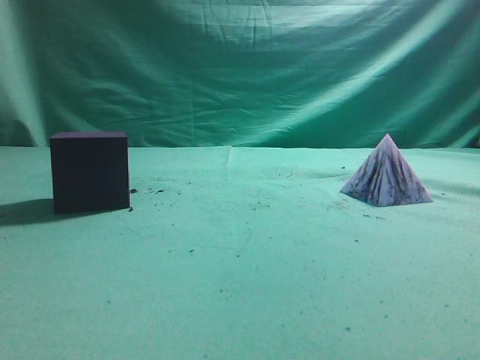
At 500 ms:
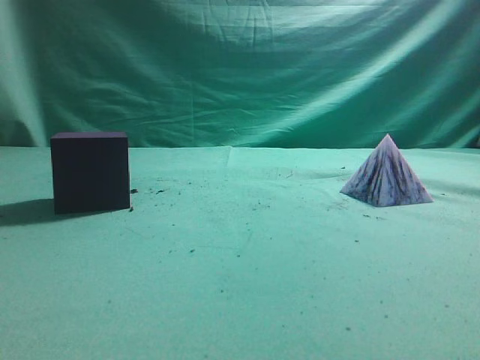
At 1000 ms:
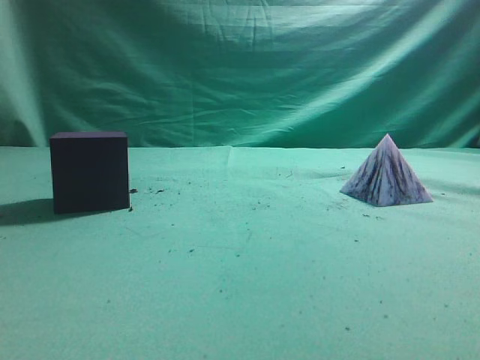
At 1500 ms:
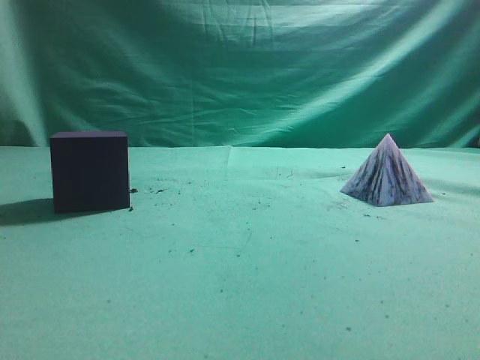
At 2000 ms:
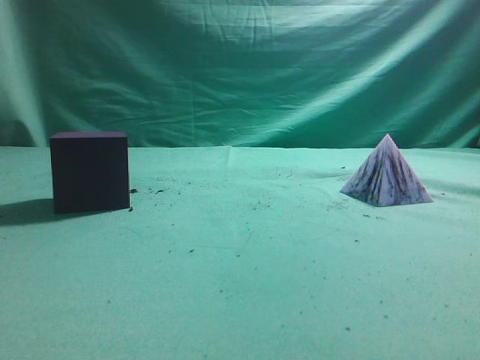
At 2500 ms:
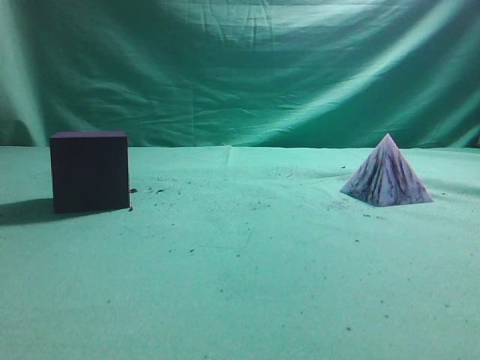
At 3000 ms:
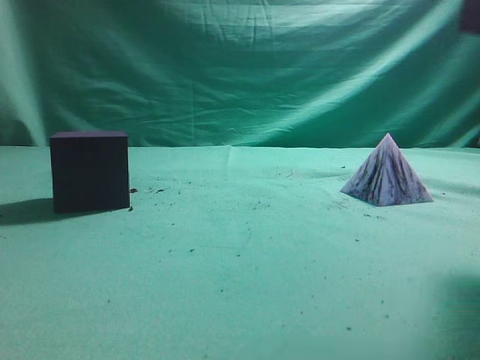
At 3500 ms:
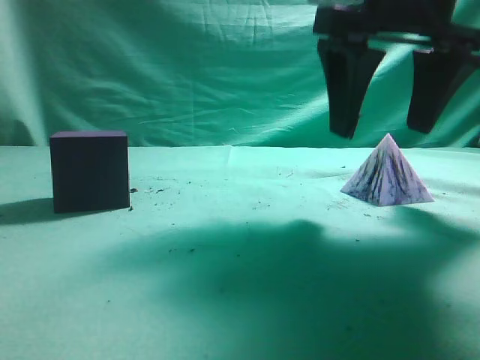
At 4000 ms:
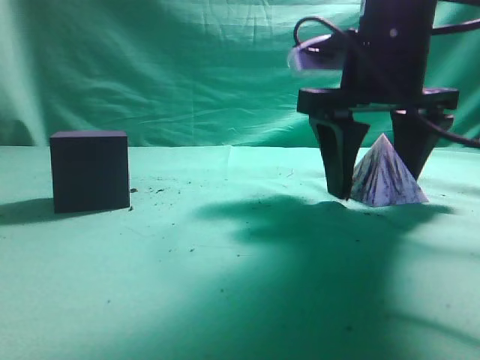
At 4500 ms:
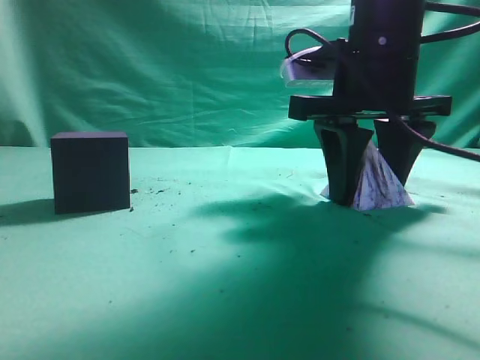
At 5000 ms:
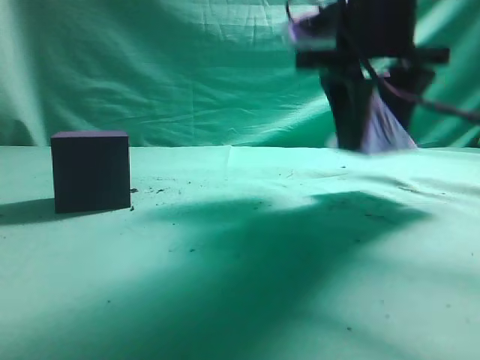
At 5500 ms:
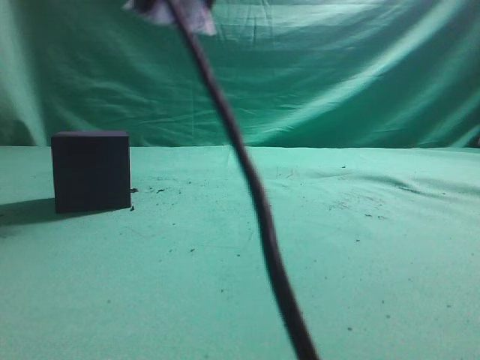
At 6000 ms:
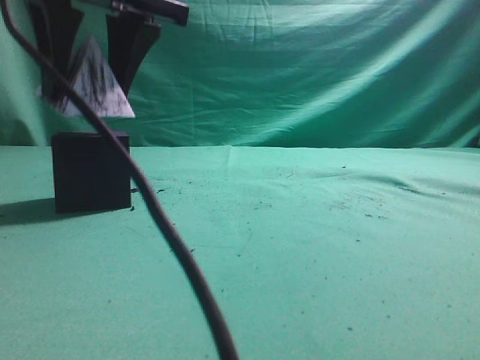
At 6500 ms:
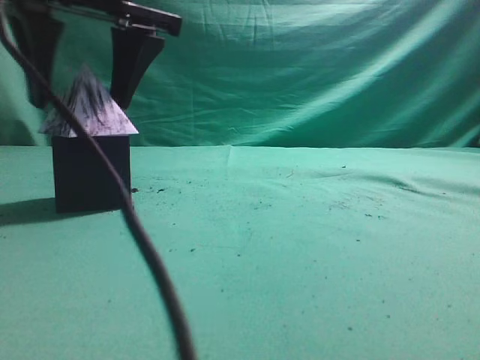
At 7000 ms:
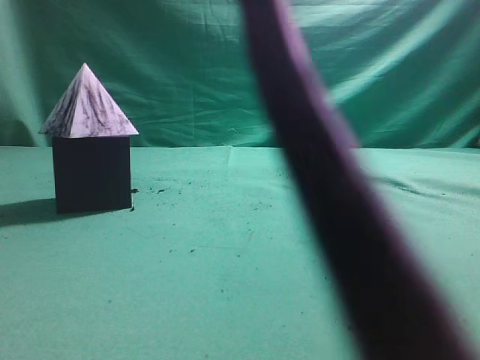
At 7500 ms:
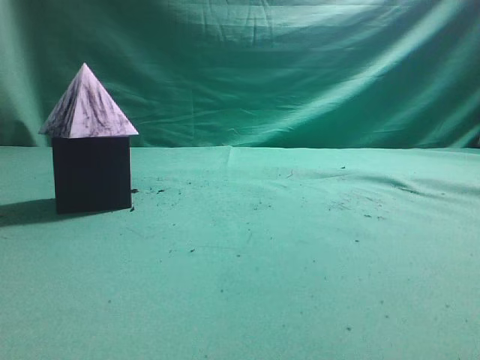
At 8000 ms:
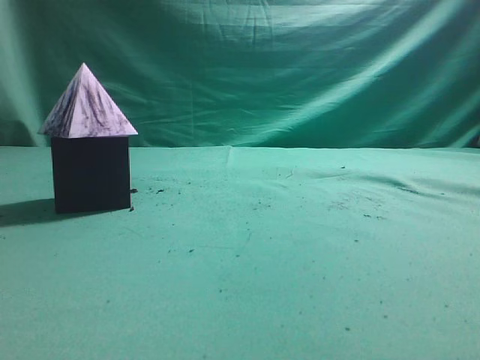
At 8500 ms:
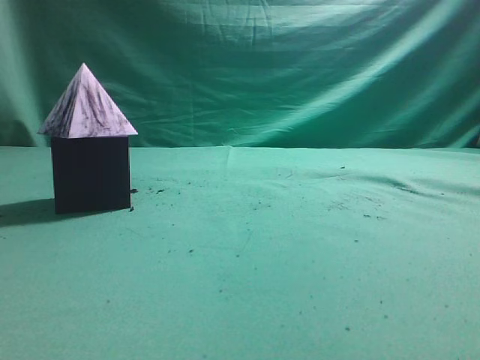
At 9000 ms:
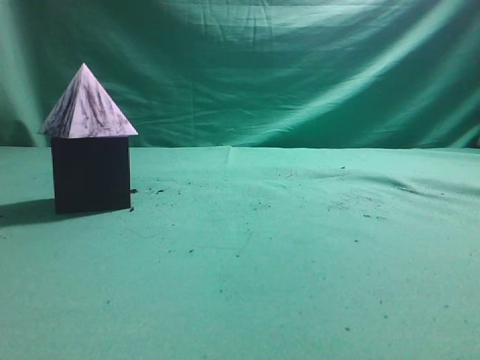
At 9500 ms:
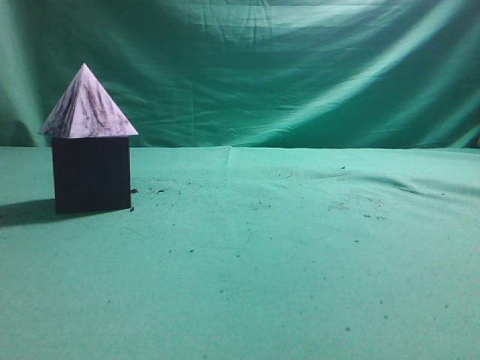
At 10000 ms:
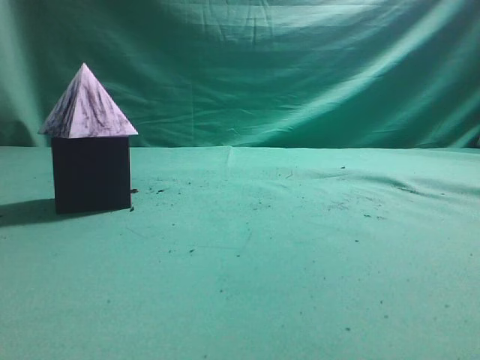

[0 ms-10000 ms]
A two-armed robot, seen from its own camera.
Task of the whole recording: pick up the square pyramid from the table and place it on the cube block.
Step, 0 ms to 5000 ms: Grasp the triangular block.
Step, 5500 ms to 6500 ms: Place the block onto the cube-shaped block.
2000 ms to 4000 ms: The right gripper travels forward, to the left and downward by approximately 35 cm, and opens.
4000 ms to 6000 ms: The right gripper heads to the left, covering roughly 20 cm.
6000 ms to 8000 ms: The right gripper shifts approximately 40 cm to the right, backward and upward, and closes up.

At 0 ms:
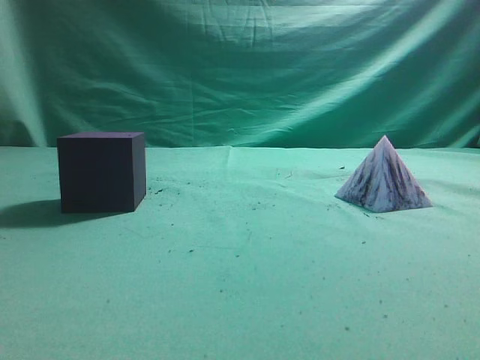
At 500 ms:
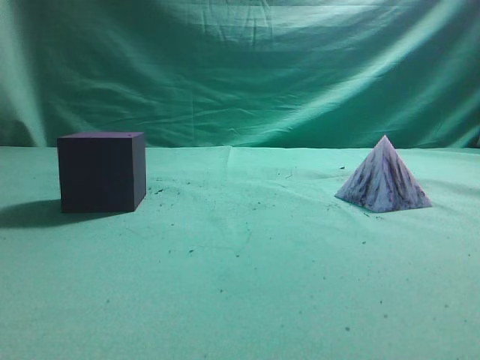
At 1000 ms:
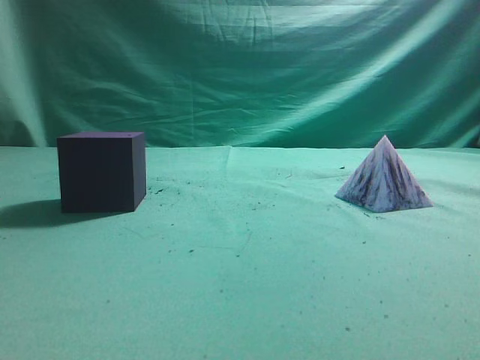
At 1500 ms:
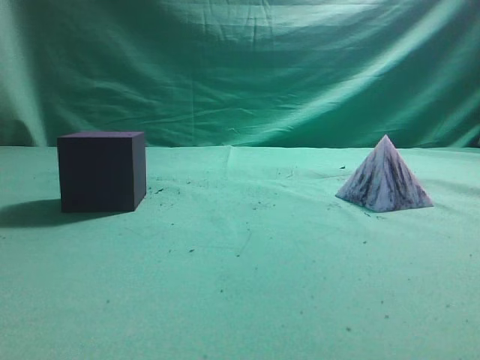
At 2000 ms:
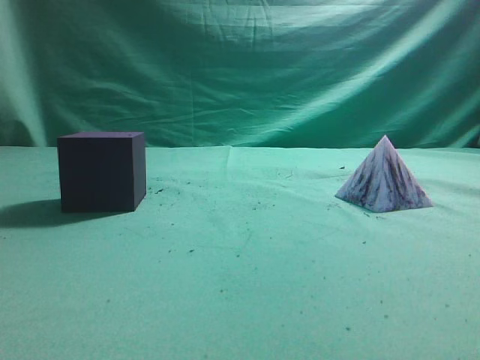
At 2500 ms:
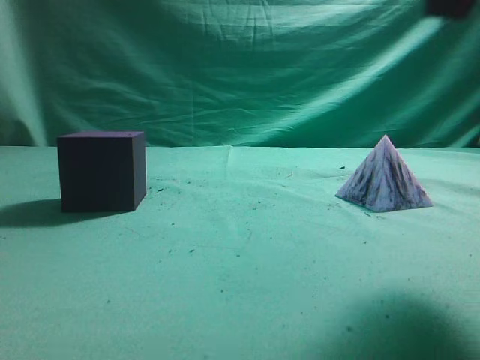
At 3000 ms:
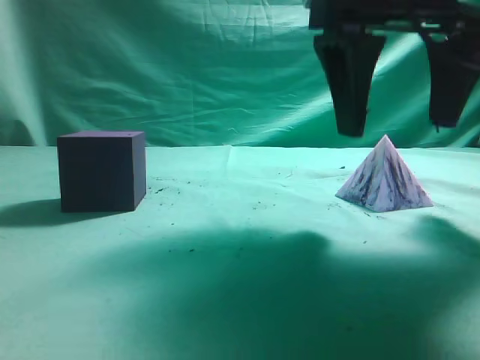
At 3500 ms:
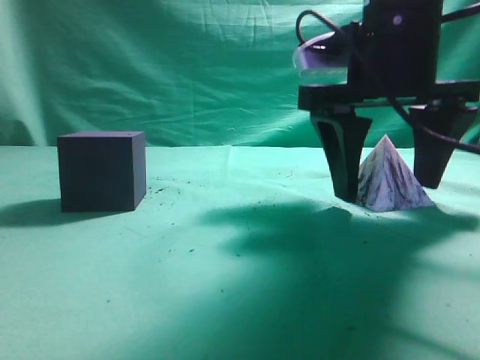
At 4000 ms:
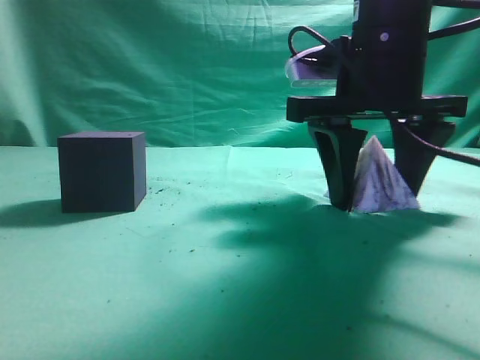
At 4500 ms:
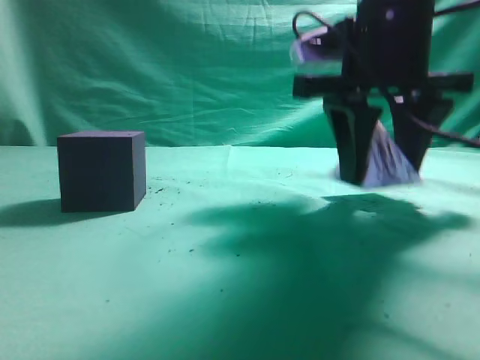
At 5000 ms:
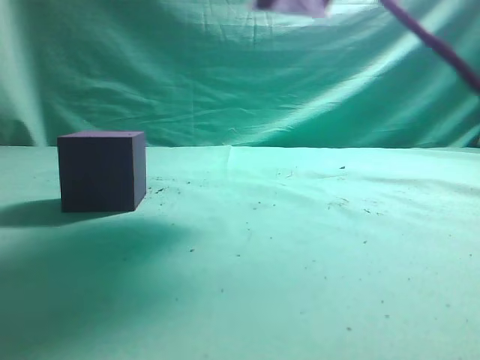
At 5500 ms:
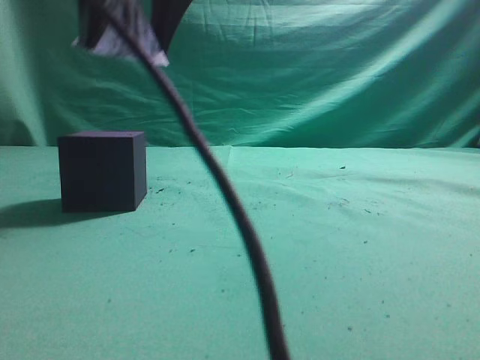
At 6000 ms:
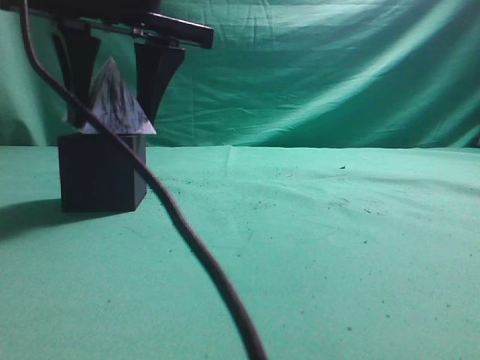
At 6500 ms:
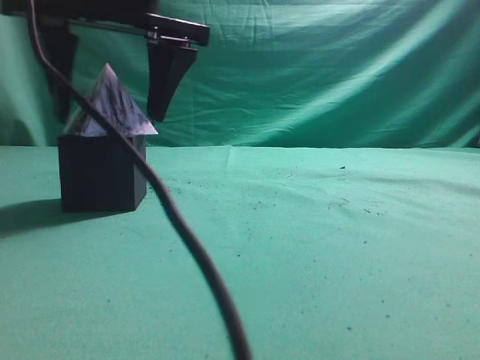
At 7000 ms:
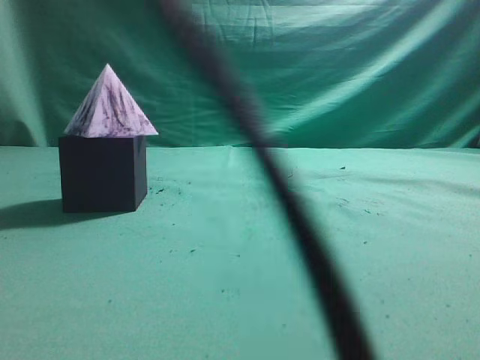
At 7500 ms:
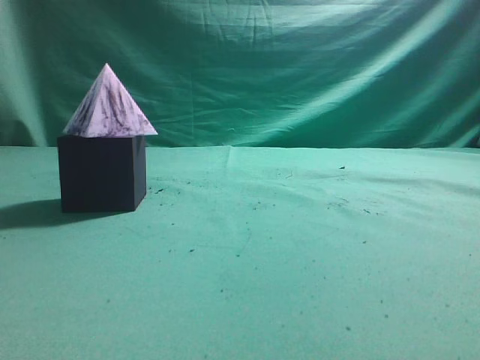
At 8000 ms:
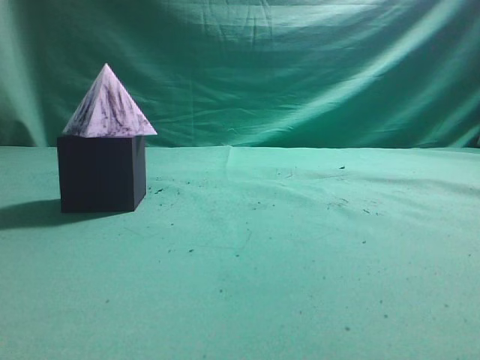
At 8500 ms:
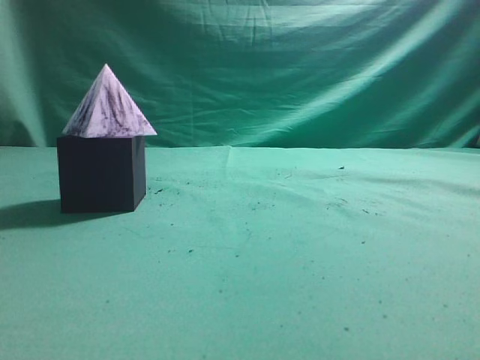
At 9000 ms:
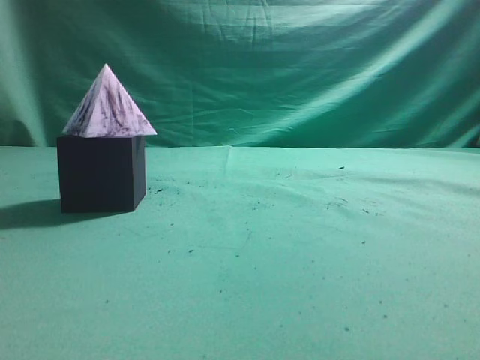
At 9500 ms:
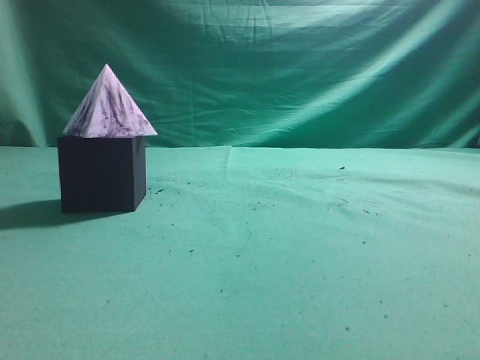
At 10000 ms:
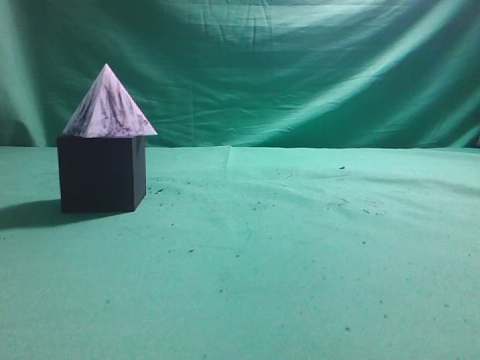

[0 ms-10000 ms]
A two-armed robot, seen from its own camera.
Task of the whole recording: pick up the square pyramid from the table and place it on the cube block.
Step, 0 ms to 4500 ms: Grasp the triangular block.
Step, 5000 ms to 6500 ms: Place the block onto the cube-shaped block.
2000 ms to 4000 ms: The right gripper is displaced forward, downward and to the left by roughly 30 cm, and opens its fingers.
4000 ms to 6000 ms: The right gripper moves to the left, some 20 cm.
6000 ms to 8000 ms: The right gripper shifts approximately 40 cm to the right, backward and upward, and closes.
